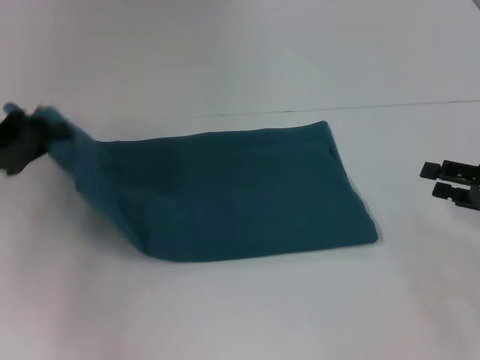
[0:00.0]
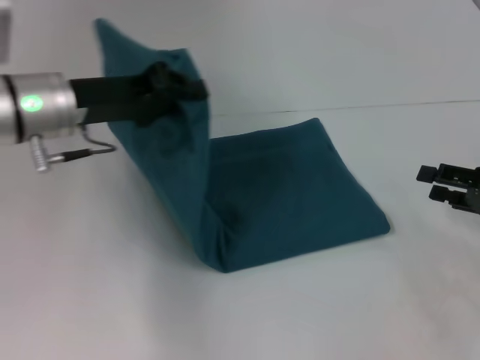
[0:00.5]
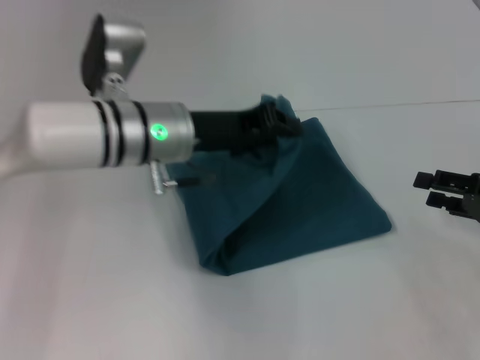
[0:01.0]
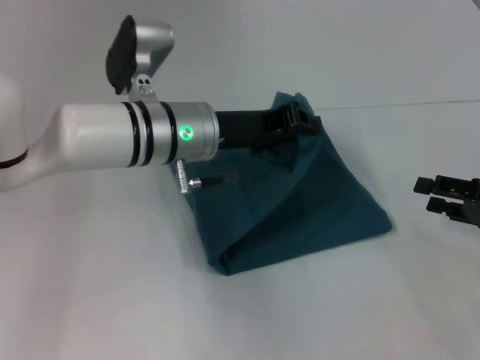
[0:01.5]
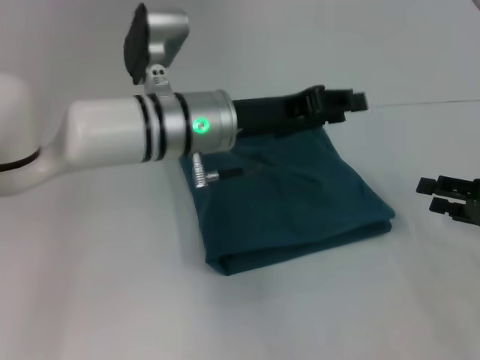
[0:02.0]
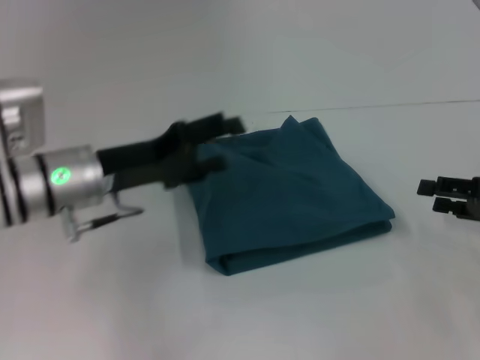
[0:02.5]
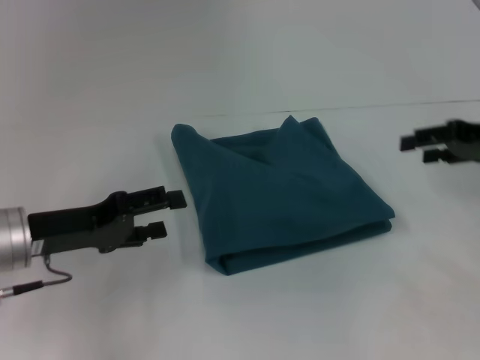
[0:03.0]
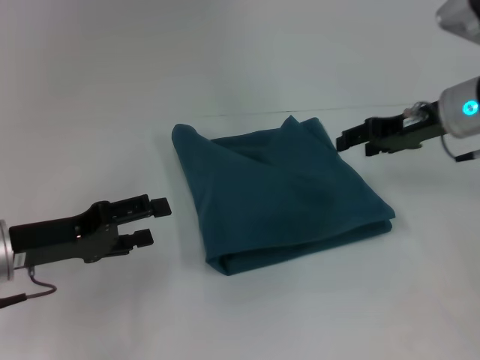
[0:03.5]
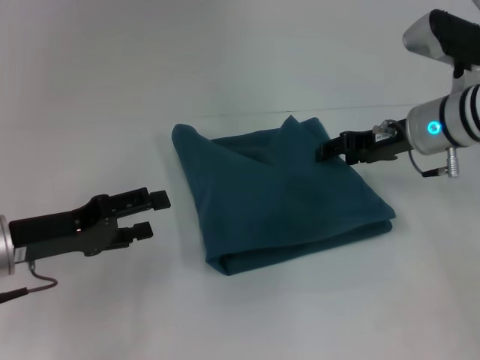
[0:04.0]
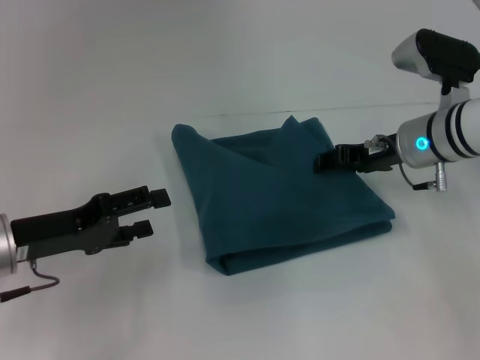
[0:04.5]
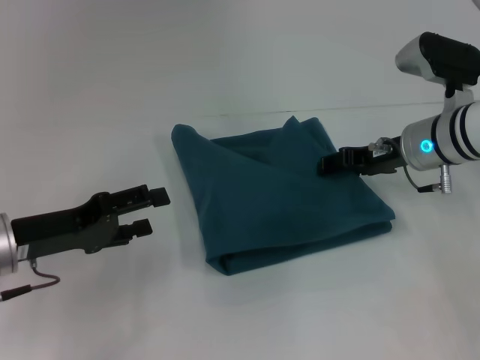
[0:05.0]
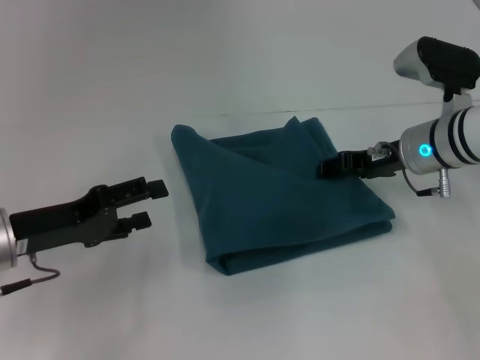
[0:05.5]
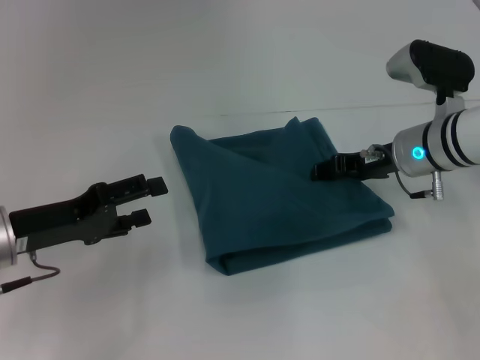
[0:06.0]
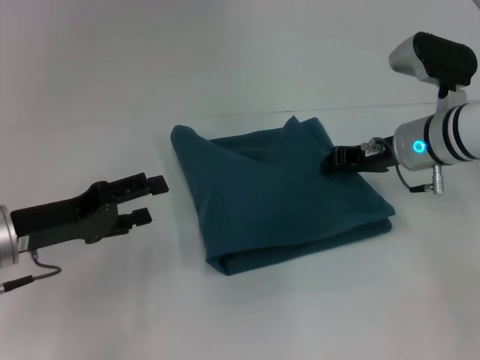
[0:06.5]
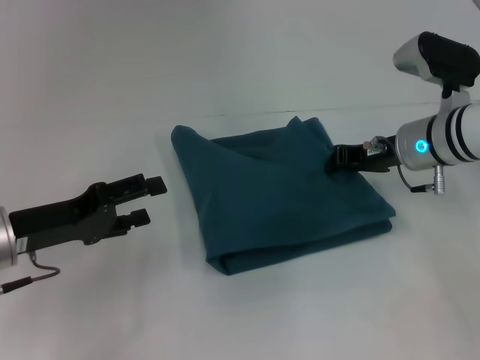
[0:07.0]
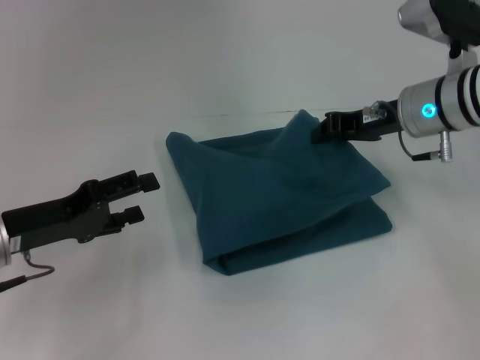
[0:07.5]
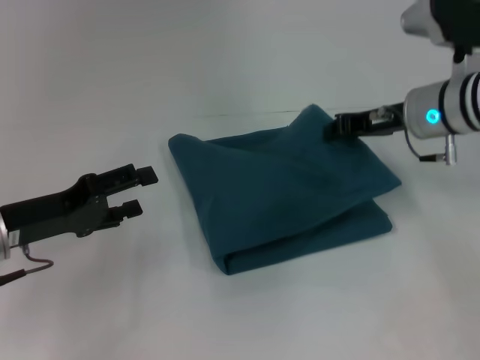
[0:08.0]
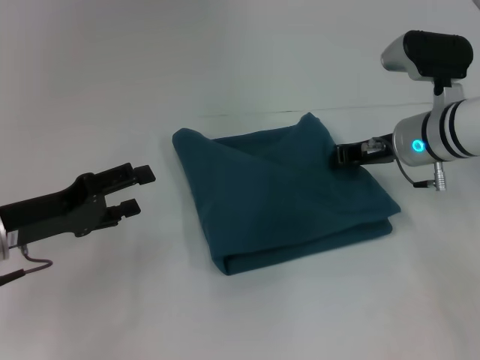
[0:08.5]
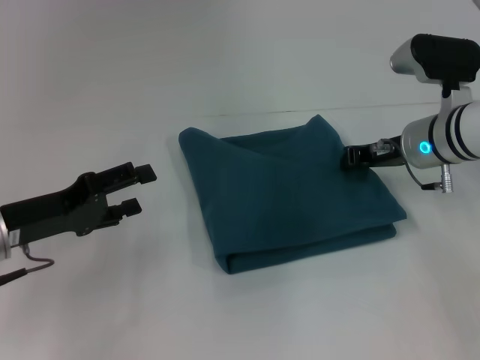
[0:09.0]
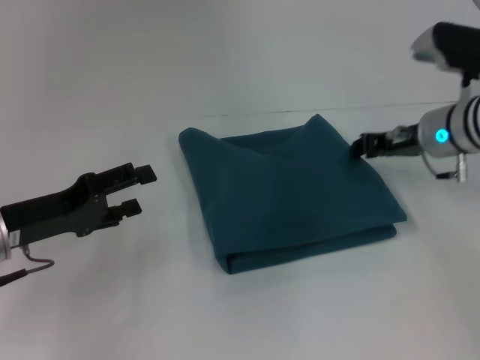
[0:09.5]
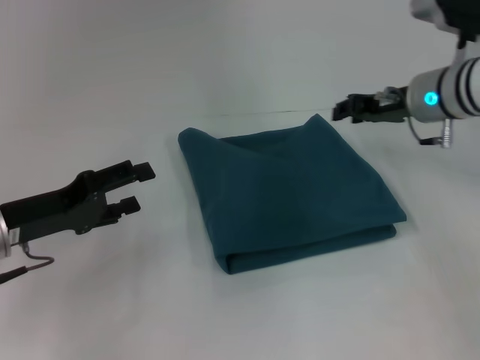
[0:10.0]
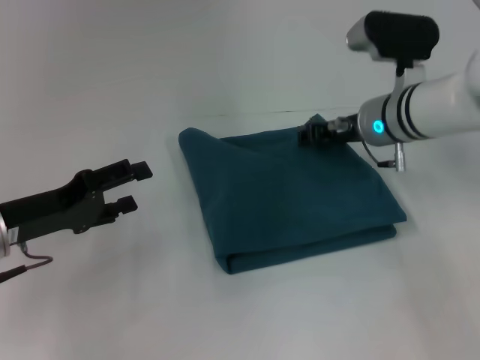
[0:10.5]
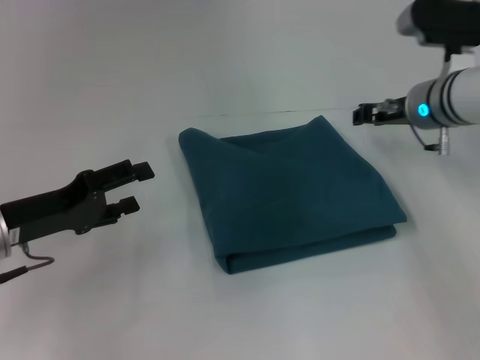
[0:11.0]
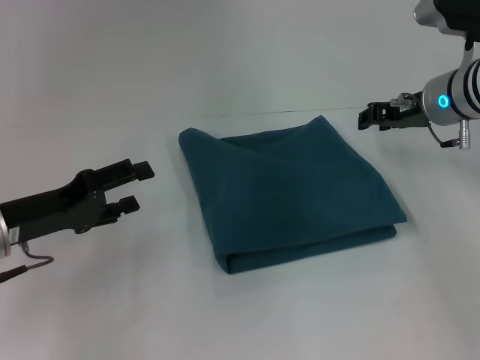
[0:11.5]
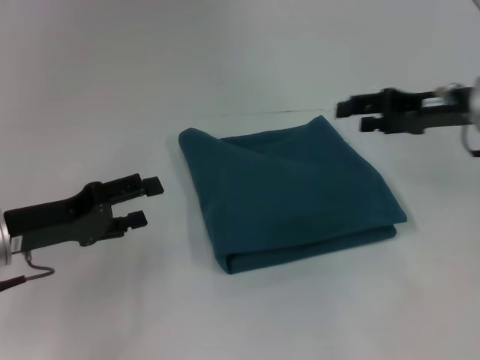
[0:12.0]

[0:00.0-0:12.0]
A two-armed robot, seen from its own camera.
0:00.0 to 0:02.0: The left gripper goes roughly 25 cm to the right.
0:02.0 to 0:04.0: The left gripper is displaced to the left and backward by approximately 20 cm, and opens its fingers. The right gripper goes about 20 cm to the left and forward.
0:04.0 to 0:06.0: The grippers move only a little.
0:06.0 to 0:08.0: The right gripper closes.
0:08.0 to 0:10.0: The right gripper opens.
0:10.0 to 0:12.0: The right gripper is displaced to the right by roughly 5 cm.

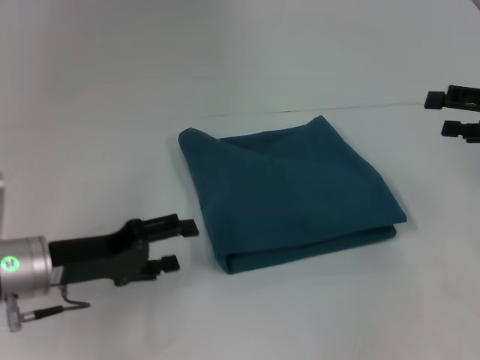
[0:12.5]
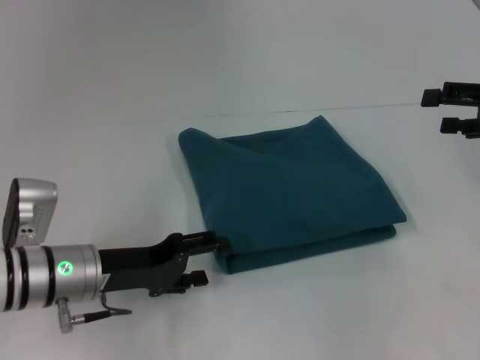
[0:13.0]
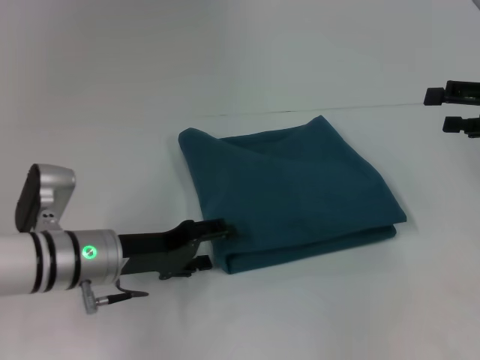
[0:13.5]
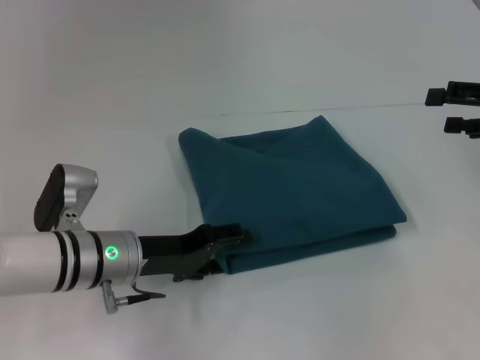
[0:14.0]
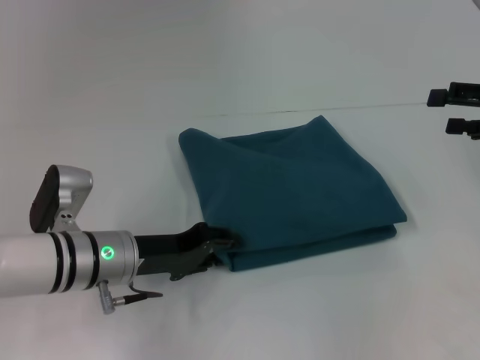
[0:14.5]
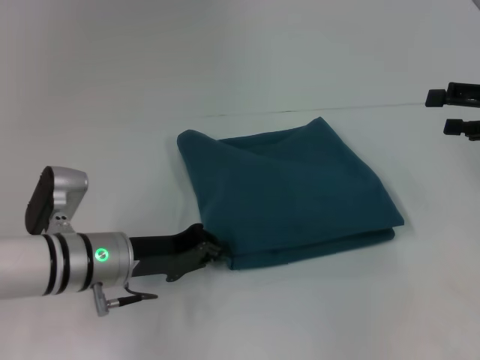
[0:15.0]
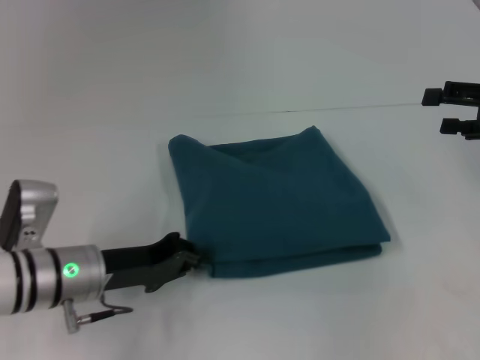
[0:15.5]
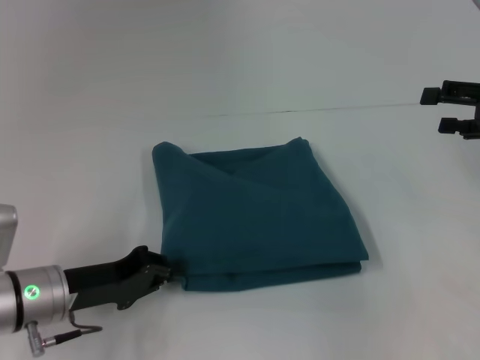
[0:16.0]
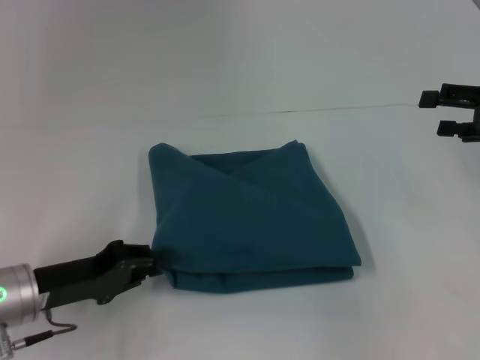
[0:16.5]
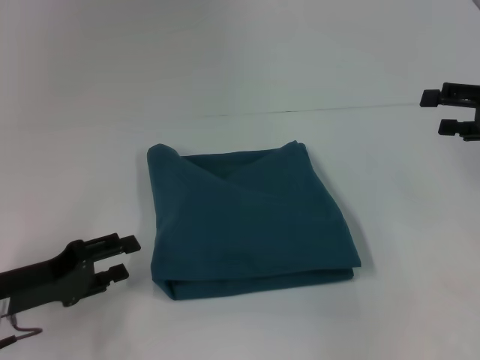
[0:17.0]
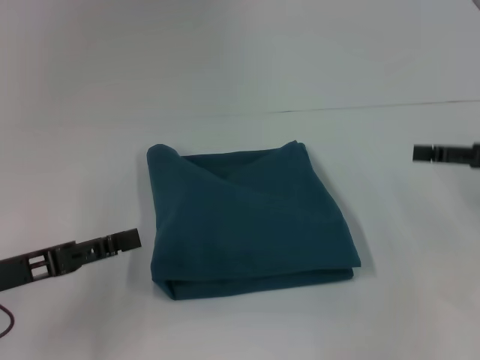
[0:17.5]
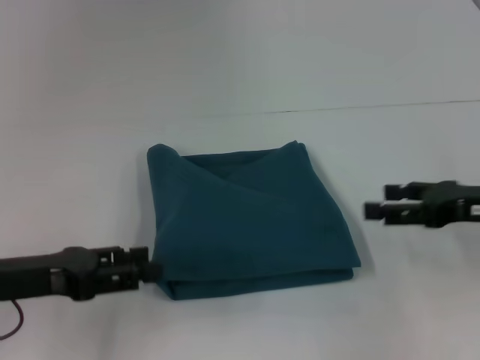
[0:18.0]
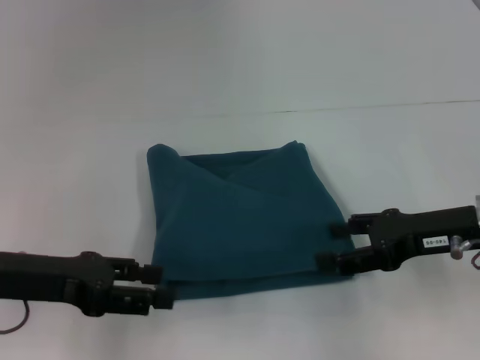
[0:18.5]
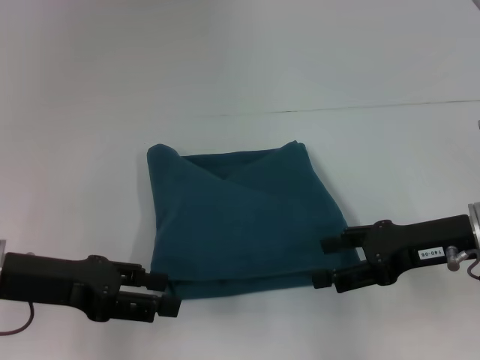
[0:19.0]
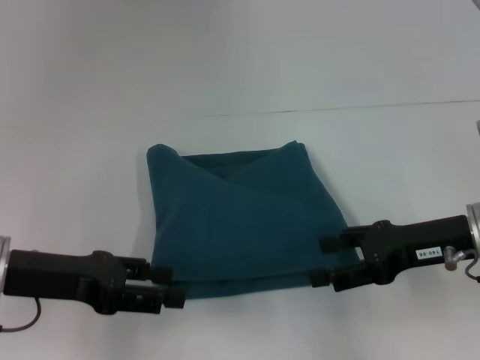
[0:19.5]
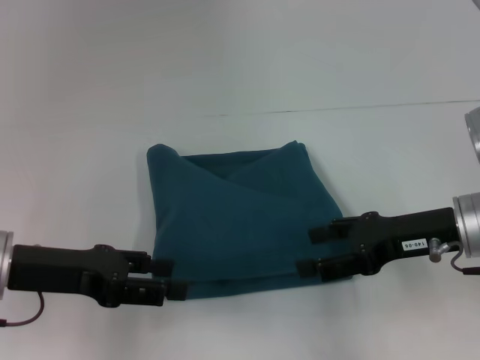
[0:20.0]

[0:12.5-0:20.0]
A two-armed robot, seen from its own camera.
Step, 0:12.5 to 0:19.5: Pull the clothes with your left hand.
0:12.5 to 0:14.5: The left gripper moves to the right, approximately 5 cm, and closes its fingers.
0:14.5 to 0:16.5: The left gripper goes about 10 cm to the left, and closes up.
0:16.5 to 0:18.0: The left gripper is displaced upward by some 5 cm, and opens its fingers; the right gripper moves to the left, backward and downward, approximately 10 cm.
0:18.0 to 0:20.0: The right gripper moves to the left, approximately 5 cm.

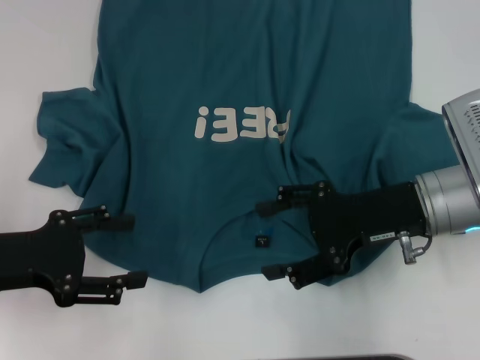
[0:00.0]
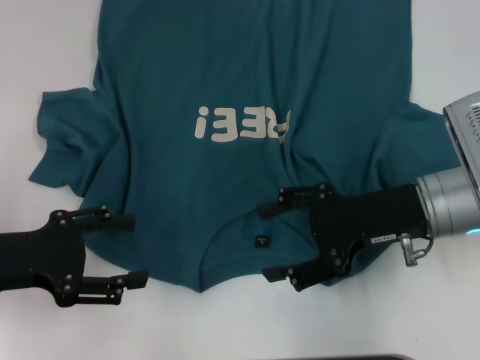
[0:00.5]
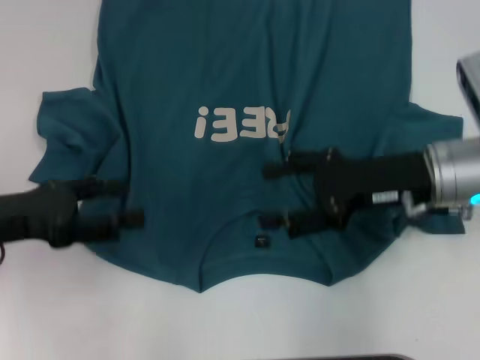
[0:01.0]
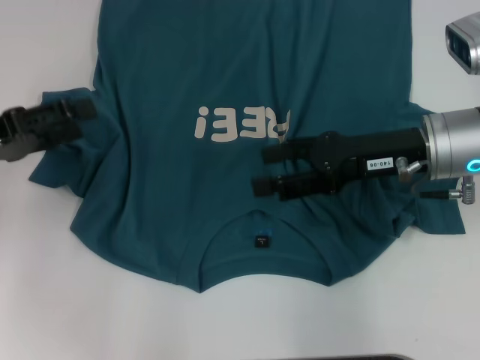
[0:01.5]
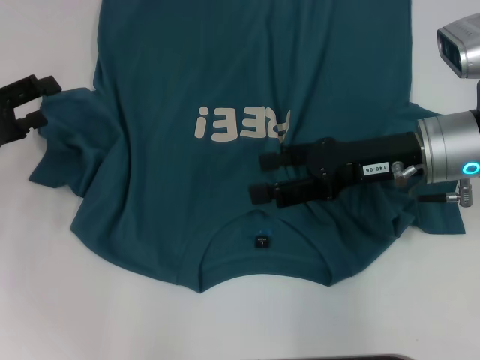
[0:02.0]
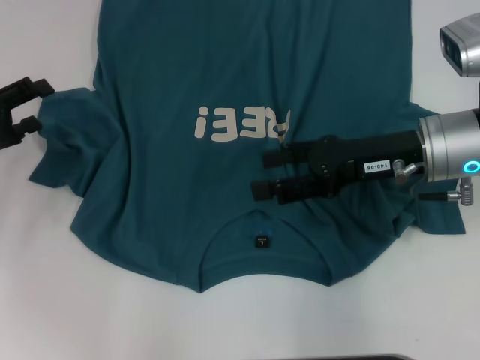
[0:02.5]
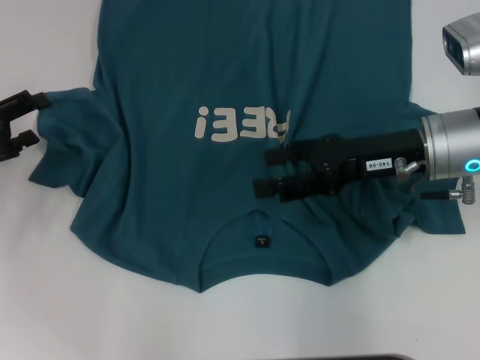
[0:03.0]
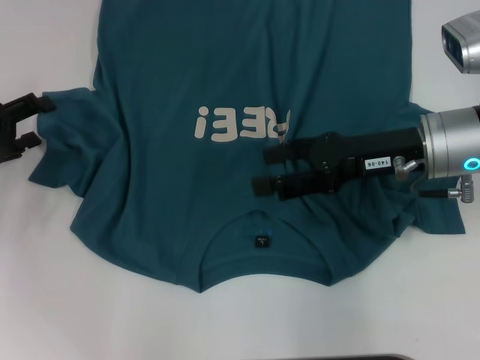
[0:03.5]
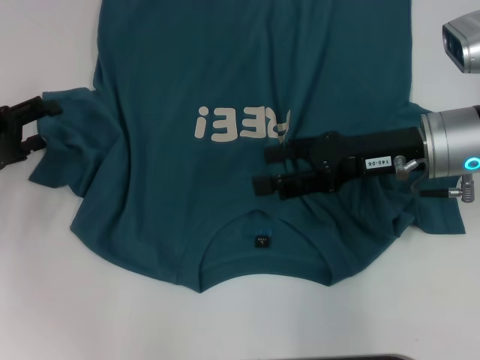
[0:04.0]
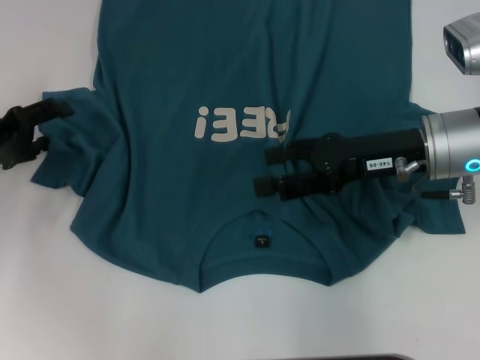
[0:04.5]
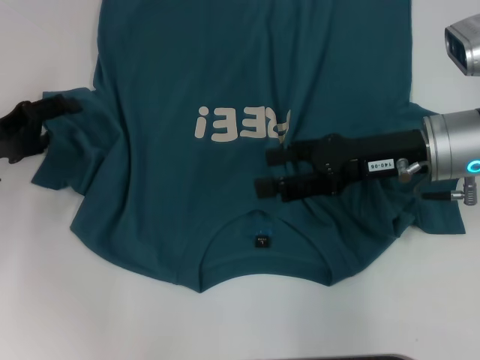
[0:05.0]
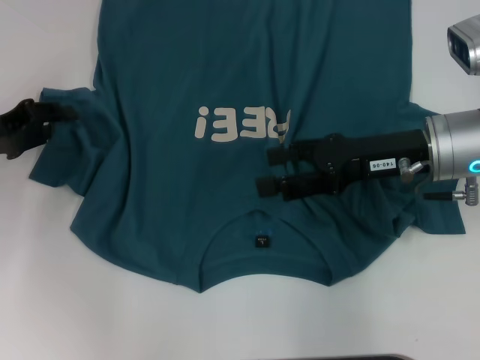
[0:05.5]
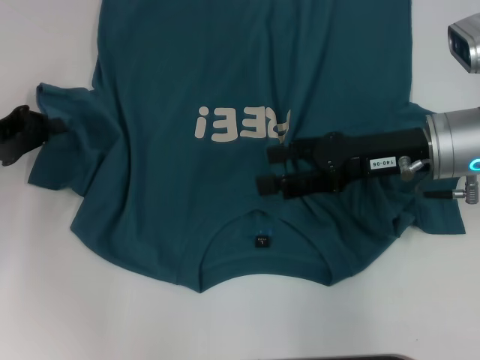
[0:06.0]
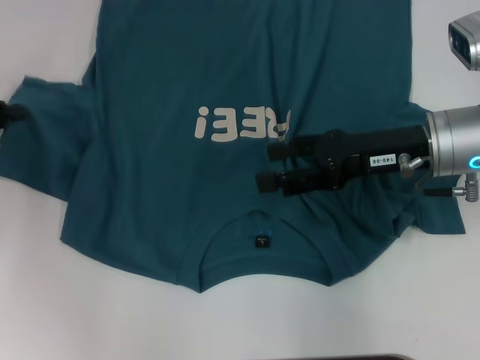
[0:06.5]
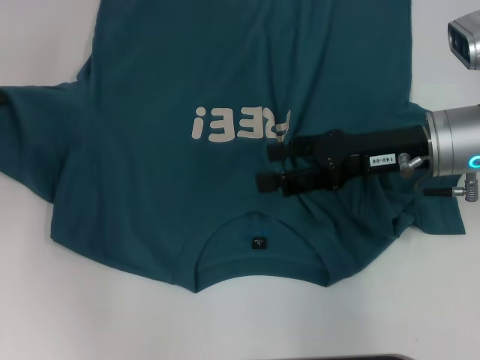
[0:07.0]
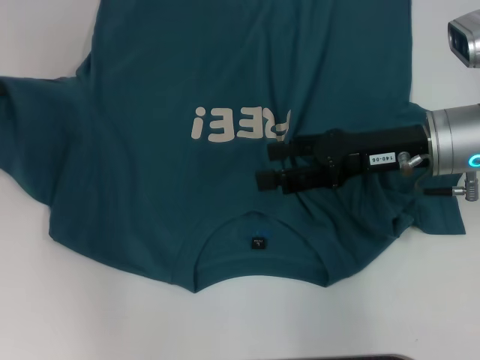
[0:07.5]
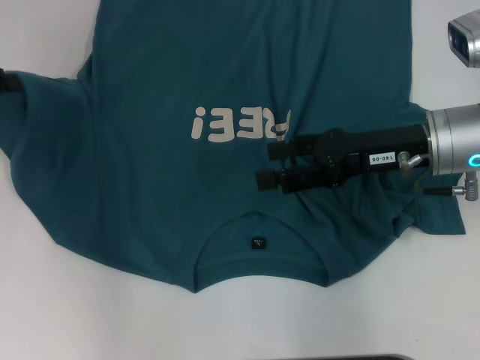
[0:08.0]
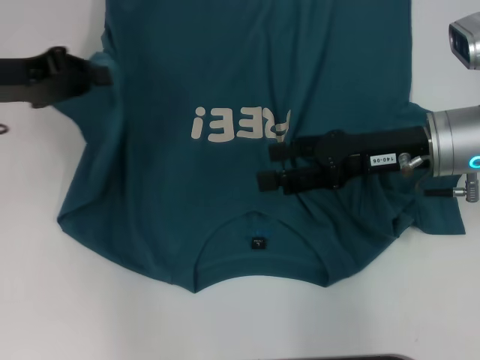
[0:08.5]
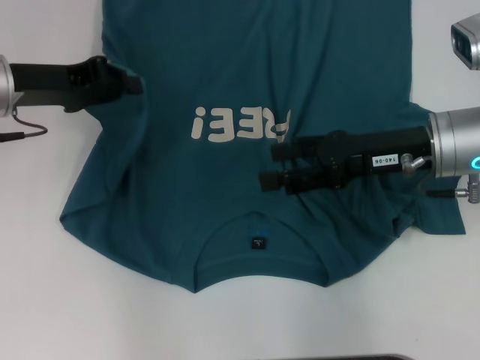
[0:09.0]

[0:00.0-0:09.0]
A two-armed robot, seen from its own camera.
0:00.0 to 0:02.0: The left gripper shifts some 10 cm forward.
0:02.0 to 0:04.5: The grippers stay close to where they were, moving slightly.
0:04.5 to 0:07.0: The left gripper goes some 5 cm upward, and closes up.
0:07.0 to 0:09.0: The left gripper travels to the right by roughly 10 cm.
